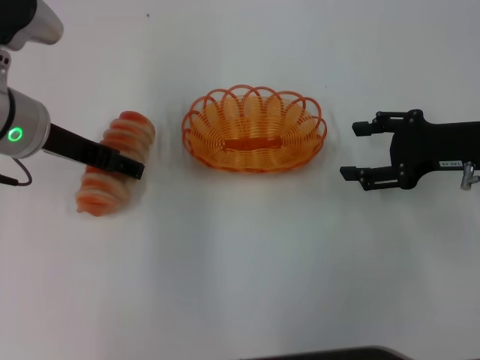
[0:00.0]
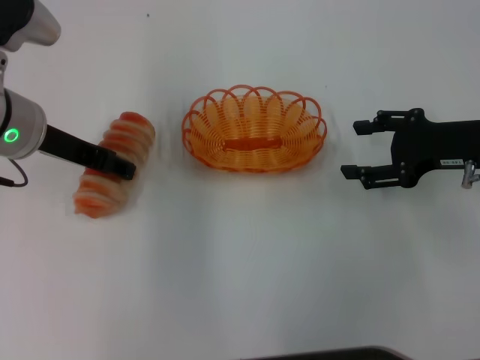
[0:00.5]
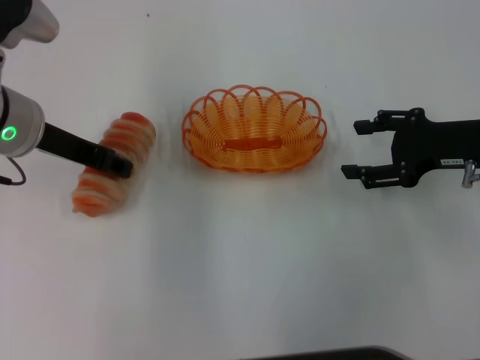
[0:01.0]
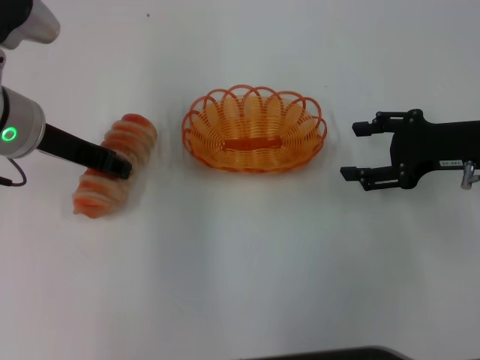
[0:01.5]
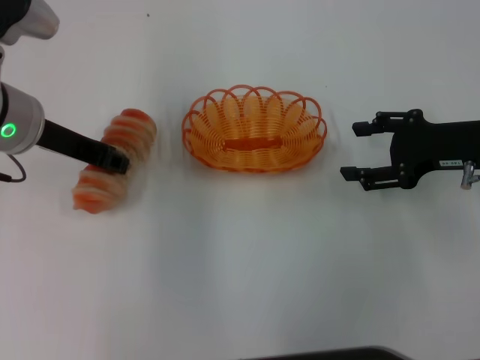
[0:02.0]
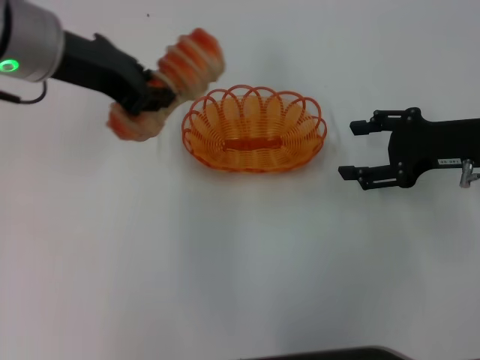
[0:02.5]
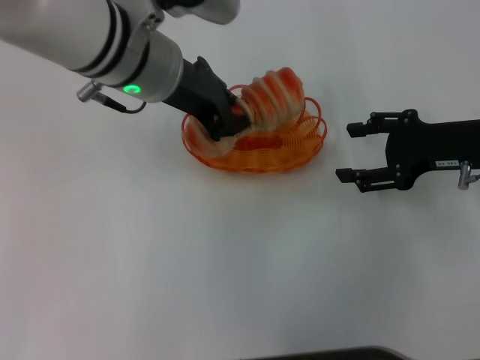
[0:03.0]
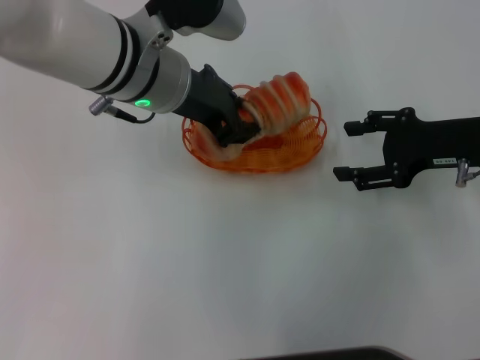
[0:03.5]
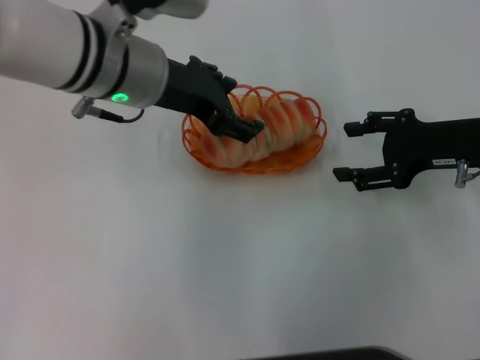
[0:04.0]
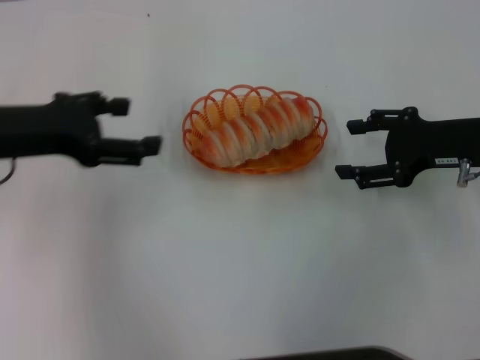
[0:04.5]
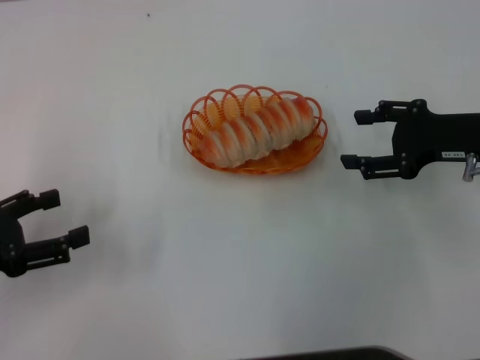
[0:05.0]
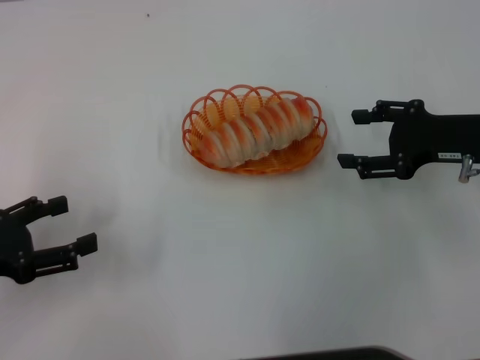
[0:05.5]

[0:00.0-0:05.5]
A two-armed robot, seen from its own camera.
Step, 0:00.0 to 0:02.0: Pick up the long bread with the left gripper.
Step, 0:02.5 to 0:04.0: Place the long bread into the basket with the left gripper.
0:00.0 to 0:02.0: The left gripper closes up.
0:02.0 to 0:03.5: The left gripper heads to the right, covering about 10 cm.
0:03.5 to 0:05.5: The left gripper shifts about 30 cm to the left and backward, and opens its fingers.

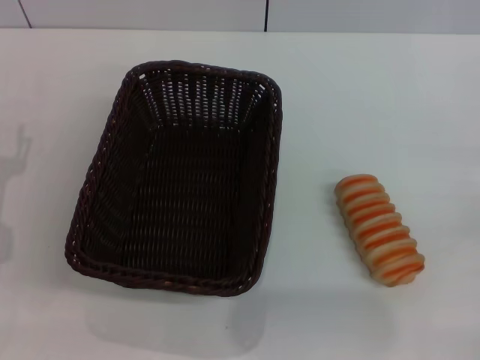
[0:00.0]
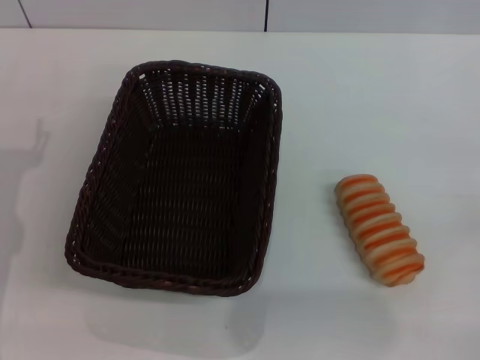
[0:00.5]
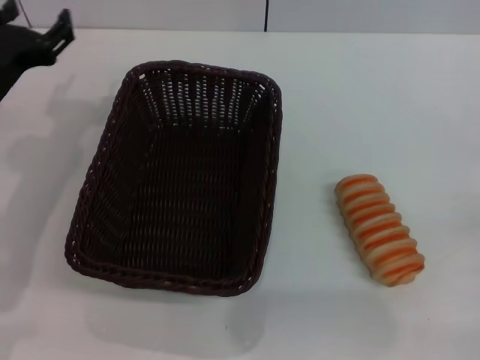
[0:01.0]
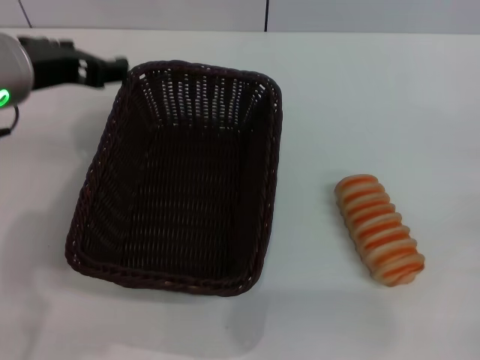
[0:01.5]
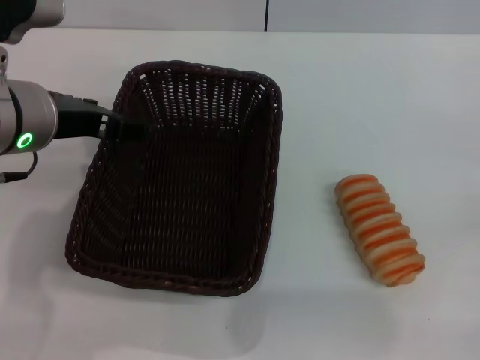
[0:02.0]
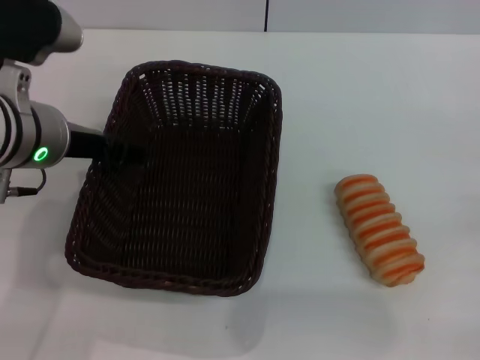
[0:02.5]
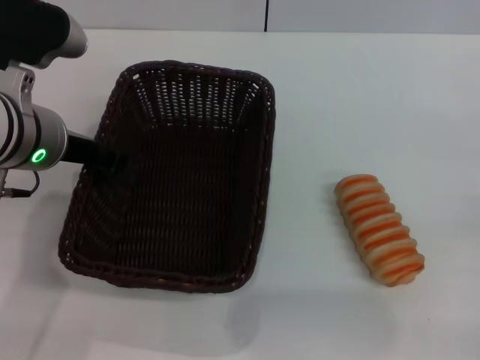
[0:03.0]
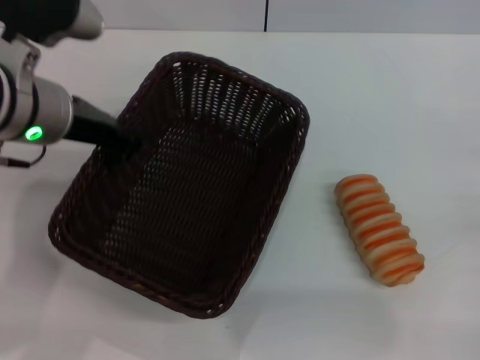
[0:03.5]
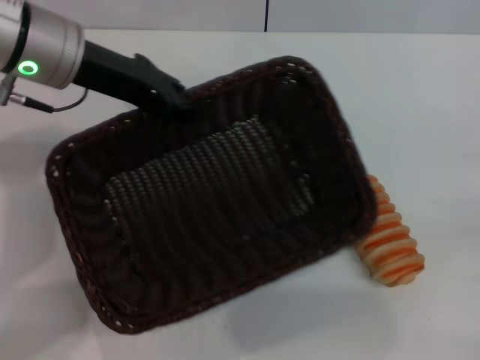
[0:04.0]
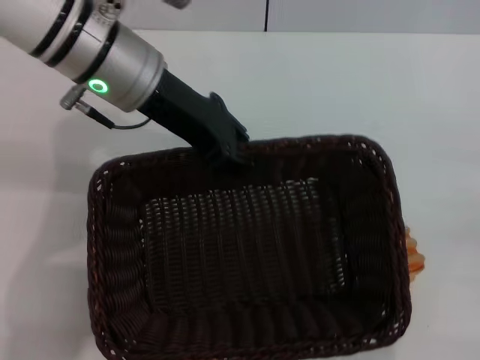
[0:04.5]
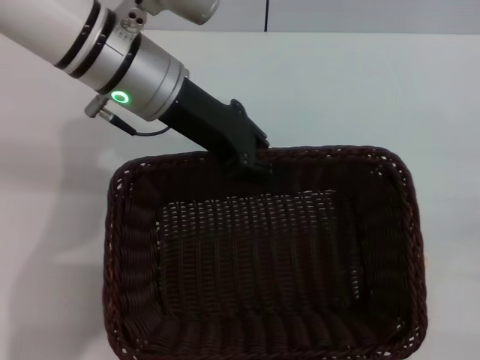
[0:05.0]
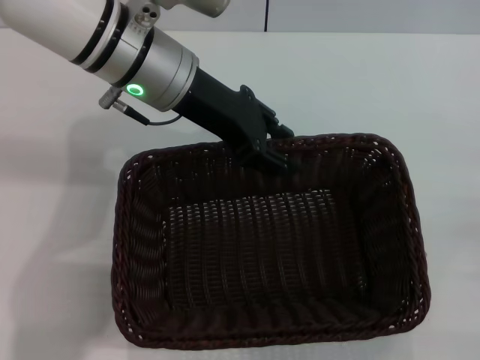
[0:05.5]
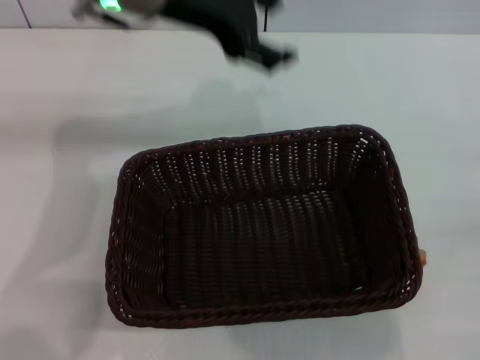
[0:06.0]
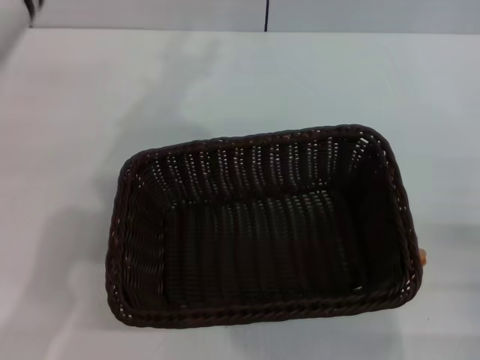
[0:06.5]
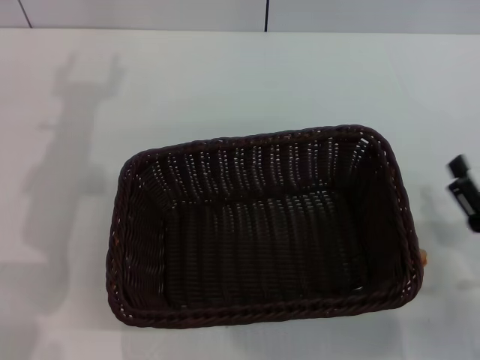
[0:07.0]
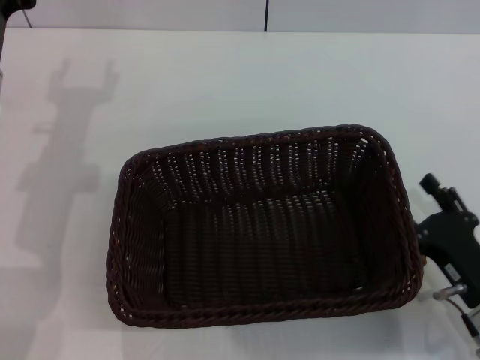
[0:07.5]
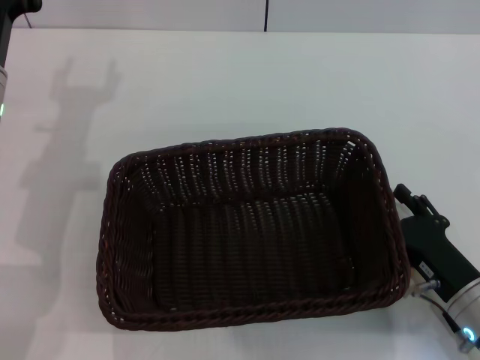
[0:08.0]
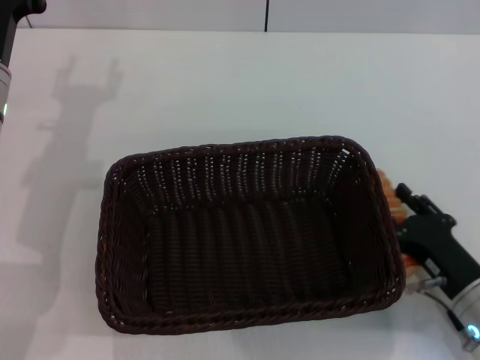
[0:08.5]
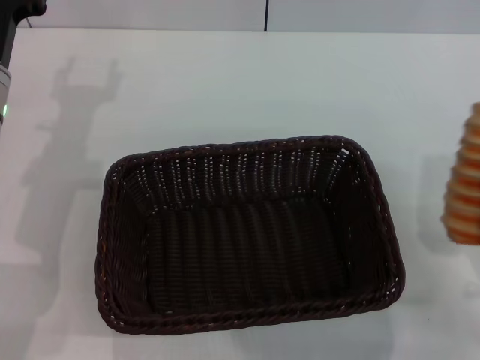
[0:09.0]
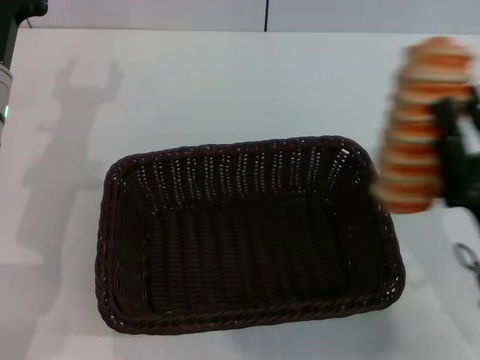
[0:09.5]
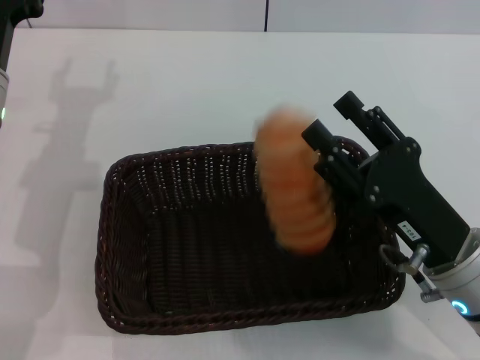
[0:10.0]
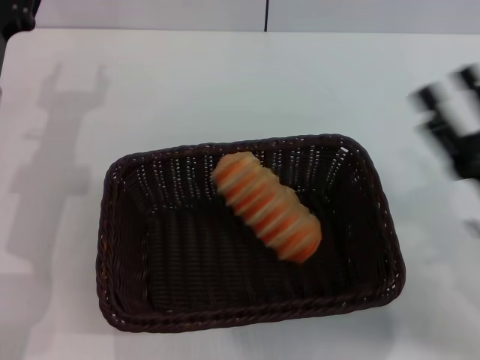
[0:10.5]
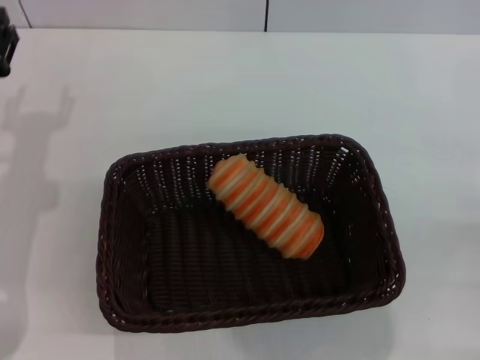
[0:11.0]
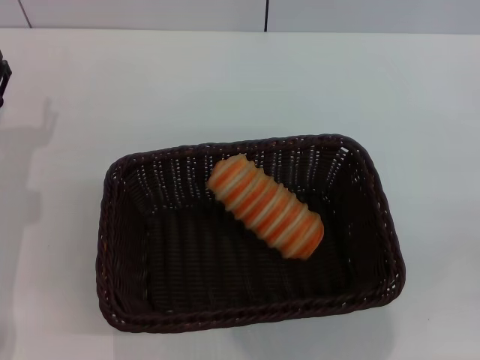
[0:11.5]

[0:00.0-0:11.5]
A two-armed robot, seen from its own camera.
Step, 0:00.0 to 0:03.5: Pick up the dark basket with the left gripper.
Step, 0:04.0 to 0:05.5: Place the dark basket in the center of view with the left gripper.
Step, 0:06.0 to 0:08.5: Pick up the long bread with the right gripper.
Step, 0:09.0 to 0:10.0: Place the long bread into the dark basket with the right gripper.
0:00.0 to 0:02.0: The left gripper is displaced upward and to the right by about 20 cm.
0:02.0 to 0:04.0: The left gripper moves forward, approximately 10 cm, and closes.
0:04.0 to 0:06.0: The left gripper moves to the right and upward, approximately 10 cm, and opens up.
0:06.0 to 0:07.5: The left gripper heads downward, to the left and backward, covering some 20 cm, while the right gripper travels to the left by about 10 cm.
0:07.5 to 0:09.5: The right gripper is displaced upward by roughly 5 cm, and closes.
0:09.5 to 0:11.5: The left gripper heads downward and to the left, covering about 10 cm. The right gripper moves to the right, approximately 15 cm, and opens up.
